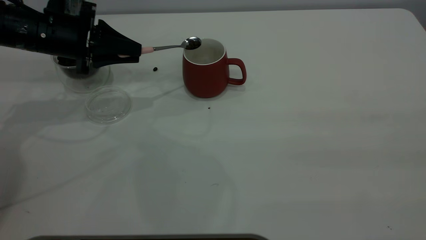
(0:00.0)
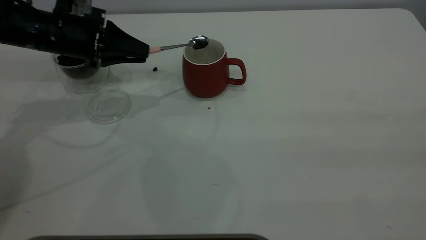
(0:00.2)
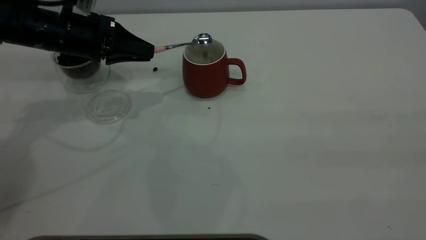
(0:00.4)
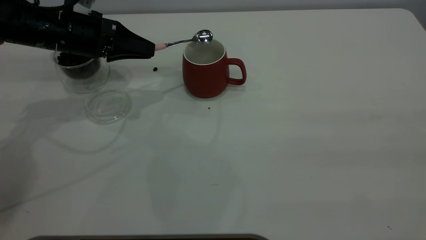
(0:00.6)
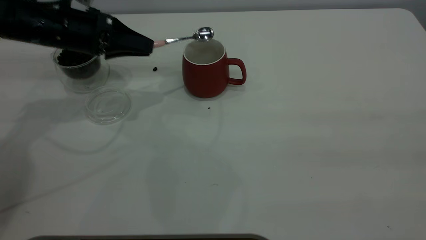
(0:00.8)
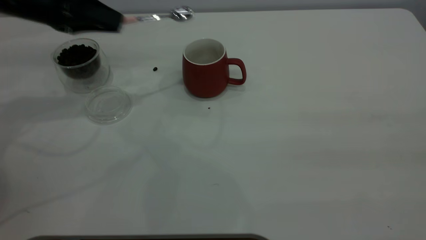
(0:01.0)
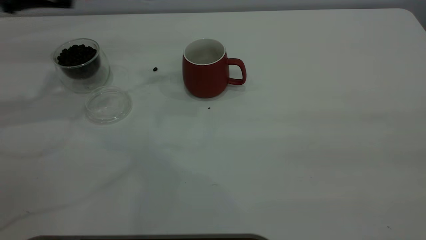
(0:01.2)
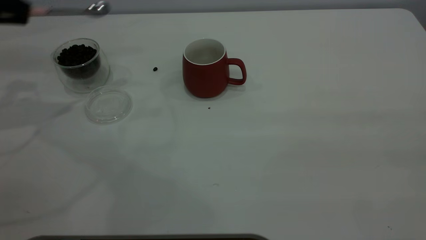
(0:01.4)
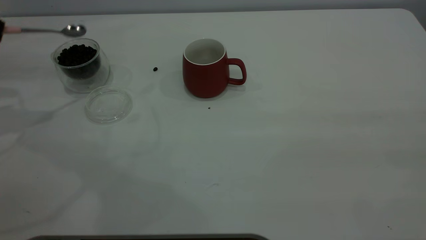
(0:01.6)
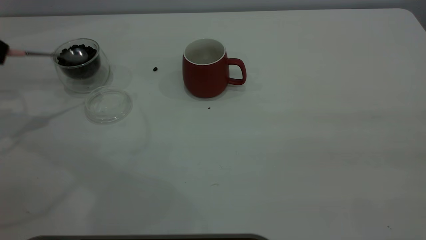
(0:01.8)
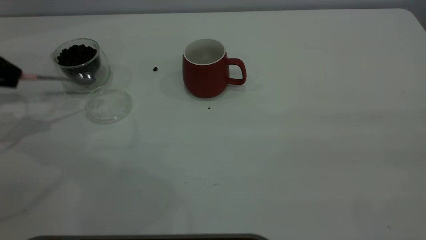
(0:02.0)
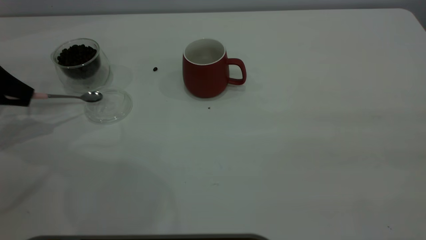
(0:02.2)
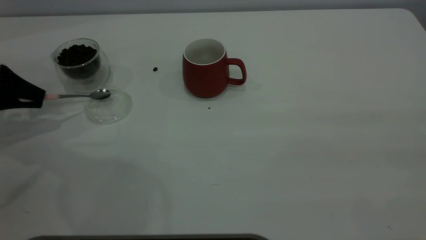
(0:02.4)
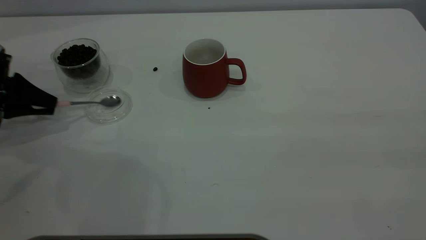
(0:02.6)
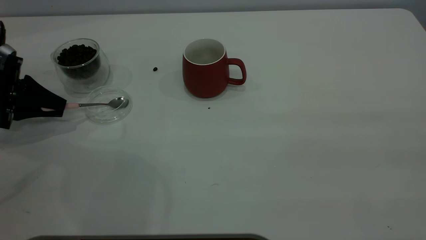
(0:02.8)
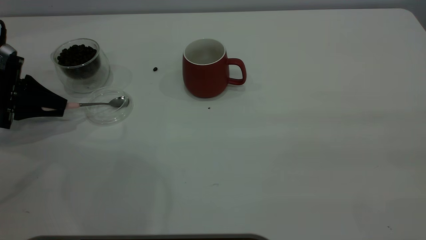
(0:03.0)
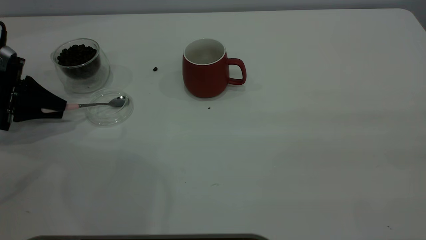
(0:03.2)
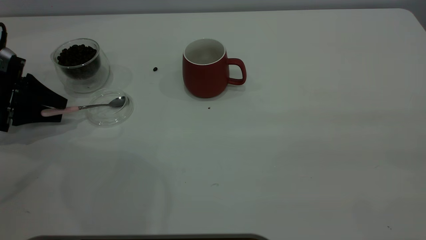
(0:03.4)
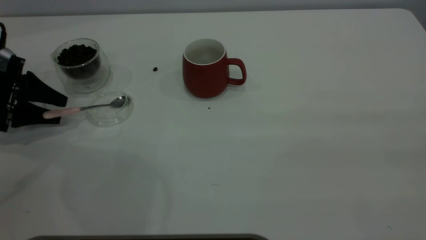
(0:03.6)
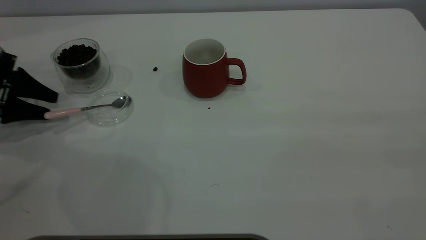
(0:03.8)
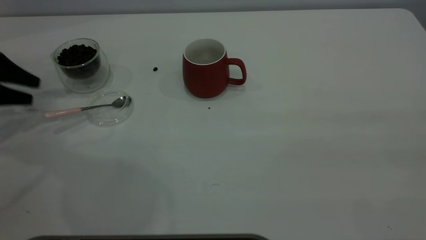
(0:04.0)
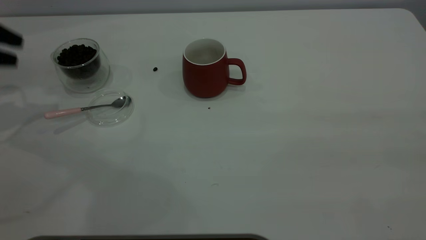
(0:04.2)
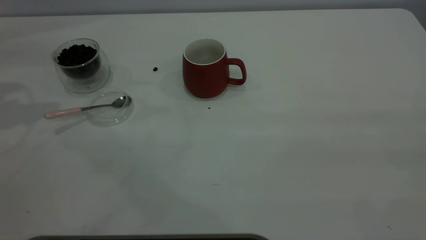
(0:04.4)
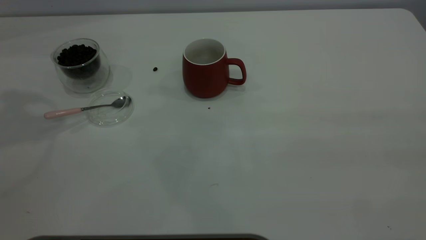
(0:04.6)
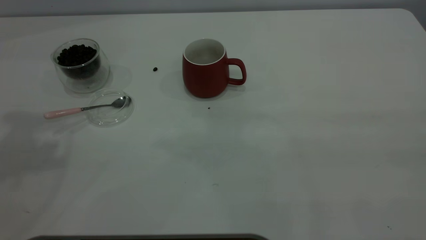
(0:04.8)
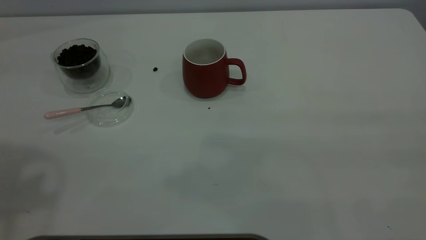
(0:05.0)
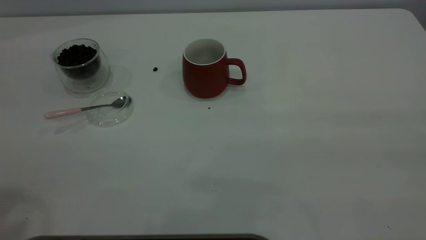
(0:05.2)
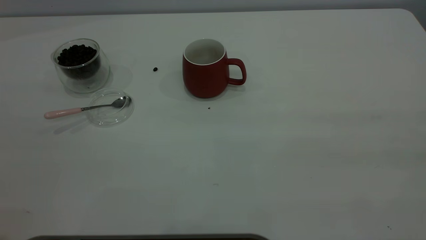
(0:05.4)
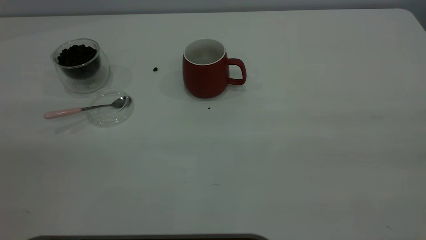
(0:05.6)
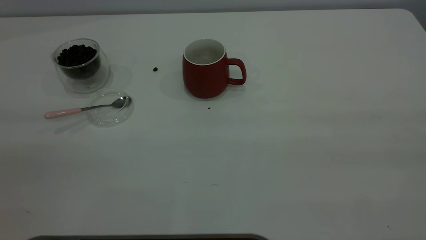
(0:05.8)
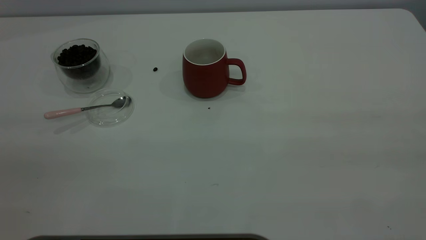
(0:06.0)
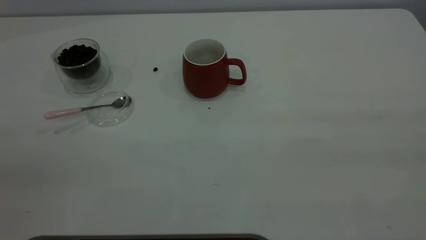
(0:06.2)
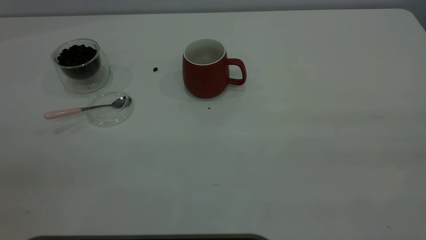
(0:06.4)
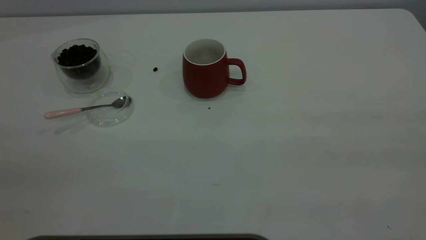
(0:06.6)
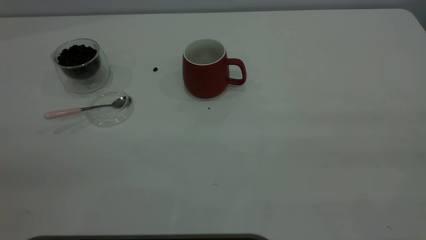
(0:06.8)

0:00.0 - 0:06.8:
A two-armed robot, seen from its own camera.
Task of the whole recording: the right gripper place the red cup in the center of the table, the left gripper take the pink spoon from the cup lid and scoop out the coffee beans from the coffee cup and put them into the red cup, the left gripper put the spoon back into the cup lid.
Step, 0:01.0 - 0:04.0: Place the spoon back in its original place.
0:00.0 - 0:01.4: The left gripper goes about 15 cm to the left and upward.
0:01.4 - 0:02.8: The left gripper heads downward, covering approximately 15 cm.
0:02.8 - 0:04.0: The left gripper shifts by some 5 cm, and opens its fingers.
0:04.0 - 0:05.4: The left gripper heads backward, upward and to the right, covering some 40 cm.
